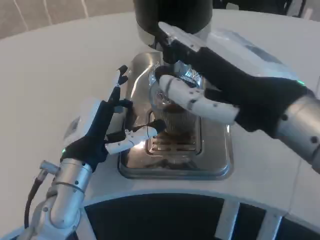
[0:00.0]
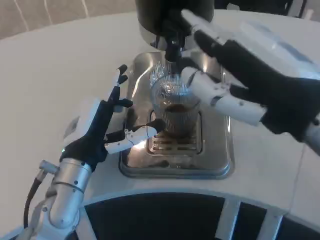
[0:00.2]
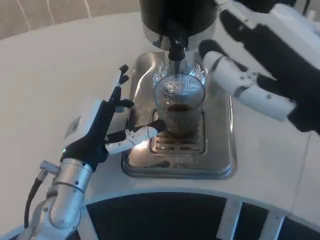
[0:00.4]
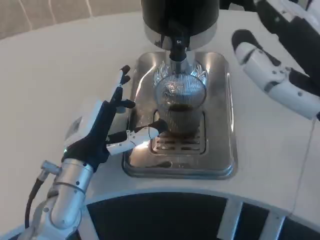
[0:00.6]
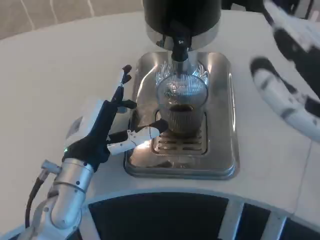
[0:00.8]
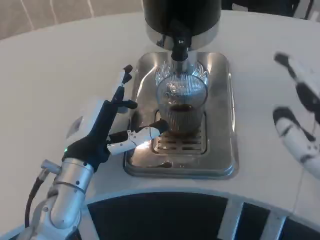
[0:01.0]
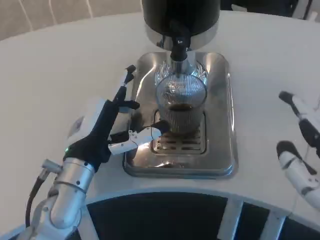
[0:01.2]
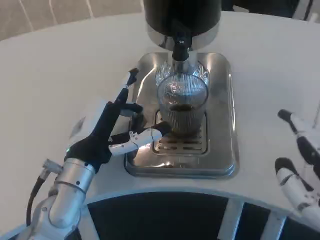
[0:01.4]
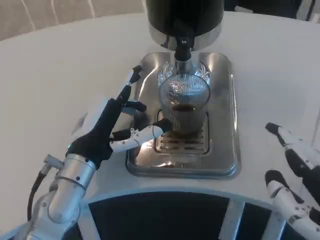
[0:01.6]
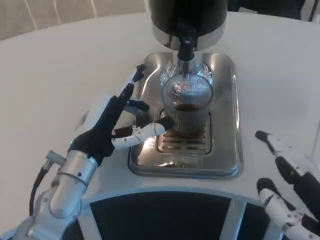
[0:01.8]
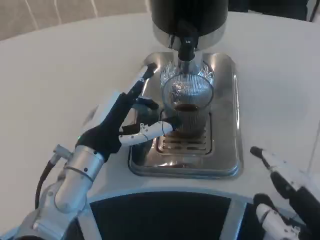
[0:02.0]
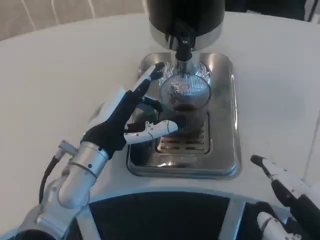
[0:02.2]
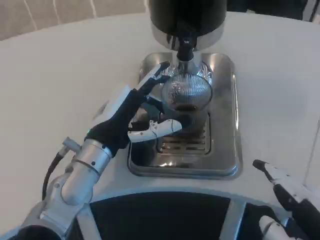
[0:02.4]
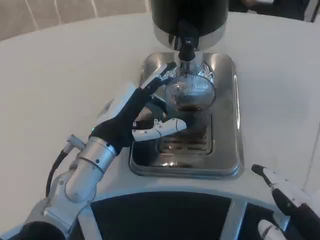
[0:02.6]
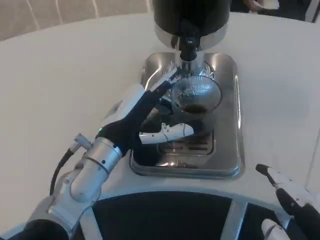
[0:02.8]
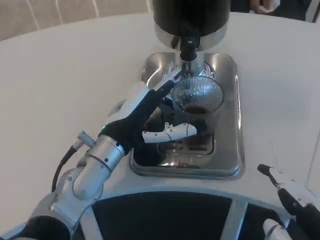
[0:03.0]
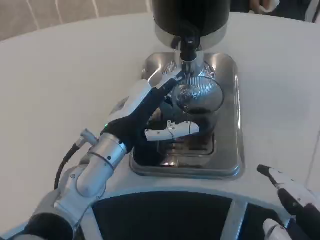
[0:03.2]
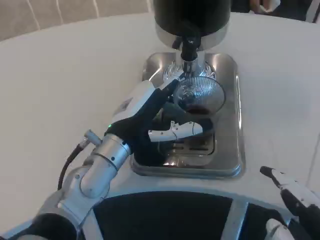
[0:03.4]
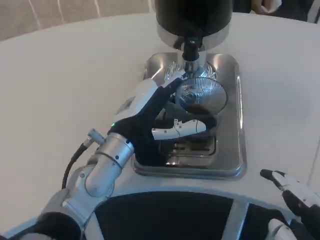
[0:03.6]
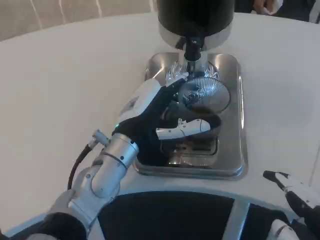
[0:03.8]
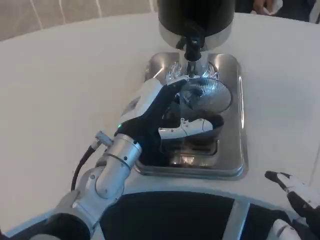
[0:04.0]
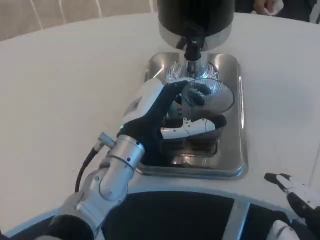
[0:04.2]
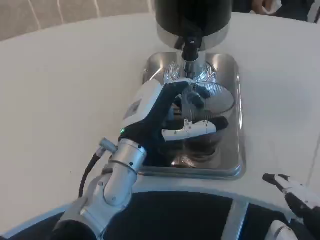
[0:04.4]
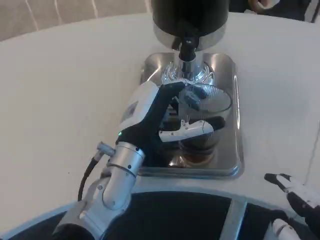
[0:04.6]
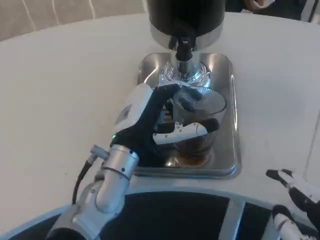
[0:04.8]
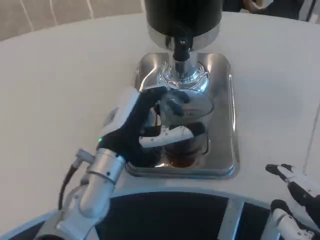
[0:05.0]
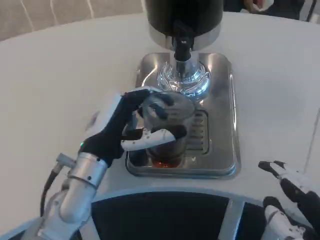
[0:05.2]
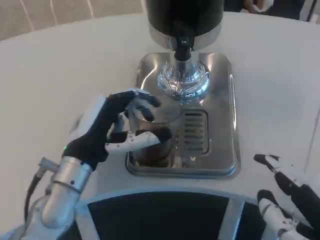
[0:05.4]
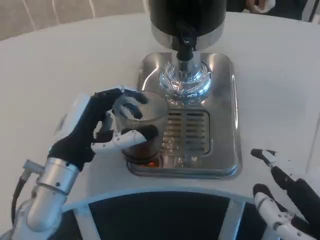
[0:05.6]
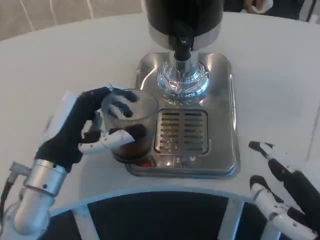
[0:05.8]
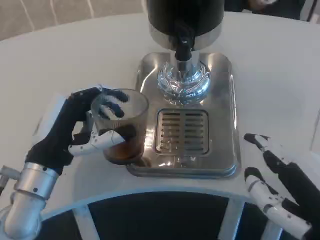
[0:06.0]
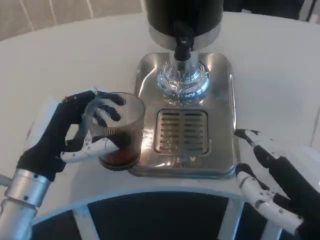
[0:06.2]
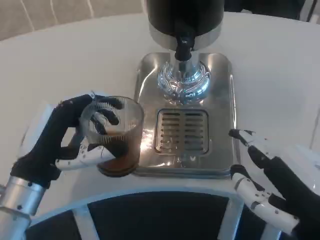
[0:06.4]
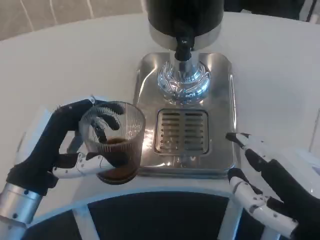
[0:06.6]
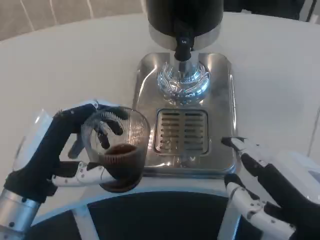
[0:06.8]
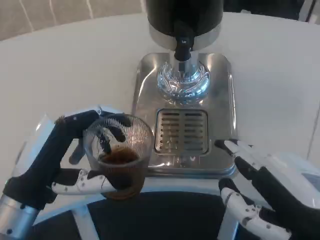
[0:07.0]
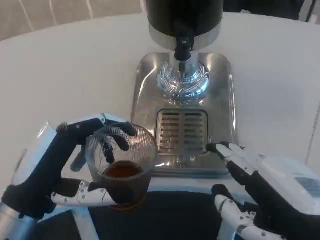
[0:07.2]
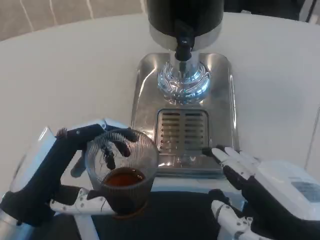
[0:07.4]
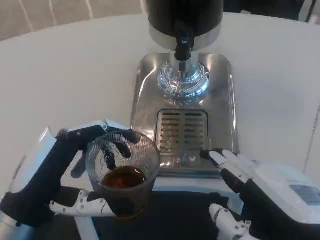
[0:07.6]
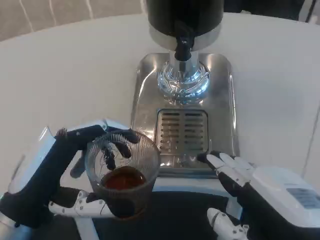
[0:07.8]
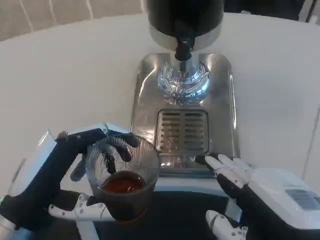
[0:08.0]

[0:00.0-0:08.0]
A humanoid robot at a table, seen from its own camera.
Task of the whole recording: Grasp the cup under the faucet to collect the drink, then remove the cup.
0:00.0 to 0:01.6: The right hand moves downward, backward and to the right, roughly 15 cm.
0:01.6 to 0:03.2: The left hand shifts by roughly 5 cm.
0:03.2 to 0:04.8: The hands move only a little.
0:04.8 to 0:06.4: The right hand shifts by about 5 cm. The left hand travels to the left and backward by some 15 cm.
0:06.4 to 0:08.0: The left hand is displaced backward by approximately 5 cm.
